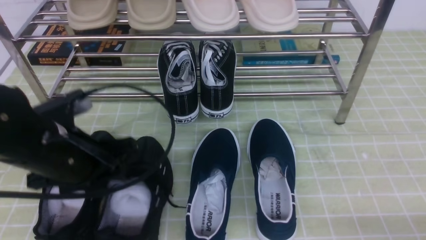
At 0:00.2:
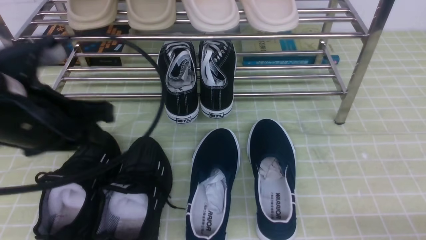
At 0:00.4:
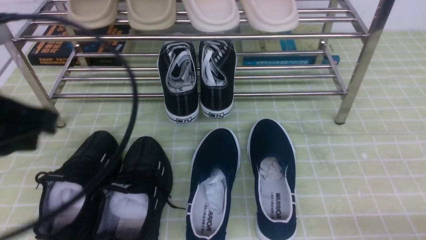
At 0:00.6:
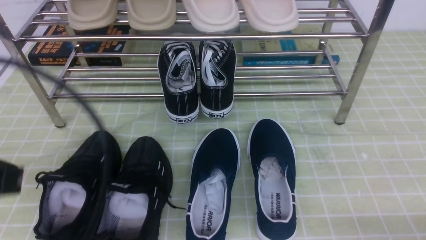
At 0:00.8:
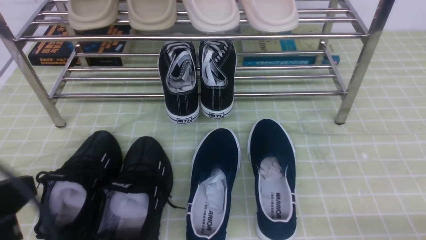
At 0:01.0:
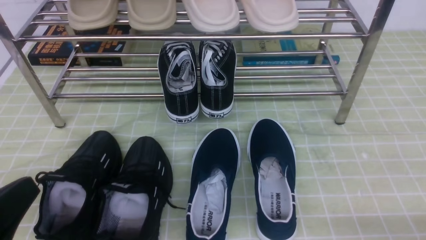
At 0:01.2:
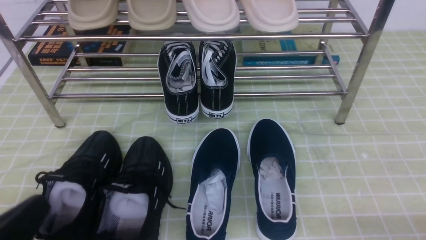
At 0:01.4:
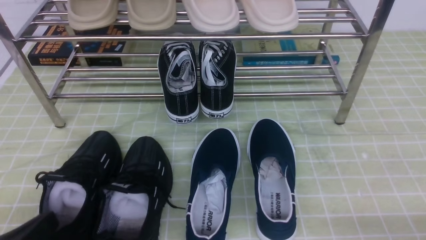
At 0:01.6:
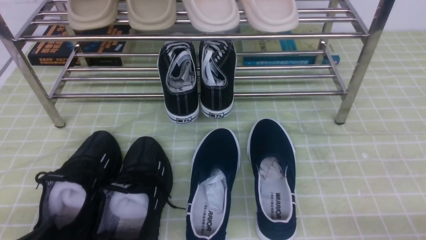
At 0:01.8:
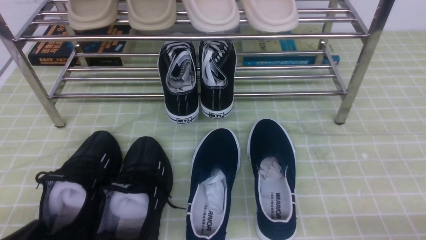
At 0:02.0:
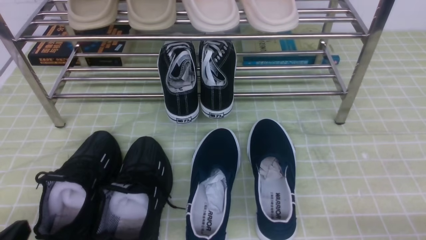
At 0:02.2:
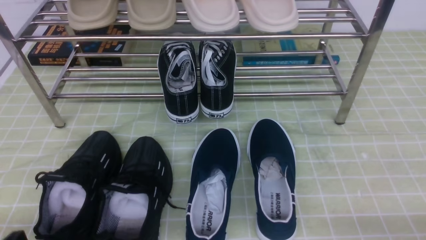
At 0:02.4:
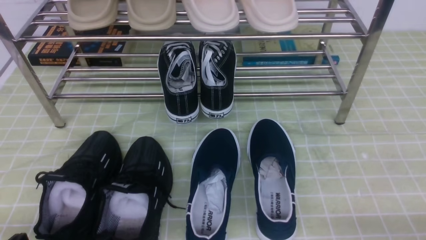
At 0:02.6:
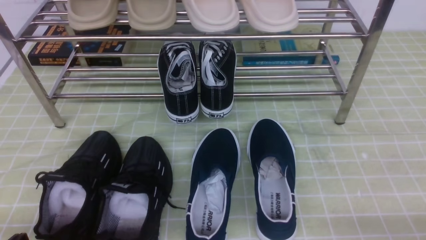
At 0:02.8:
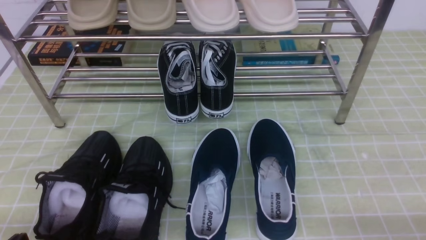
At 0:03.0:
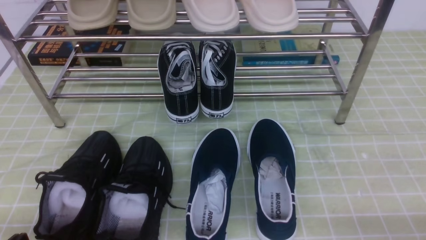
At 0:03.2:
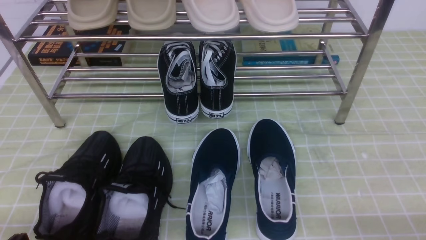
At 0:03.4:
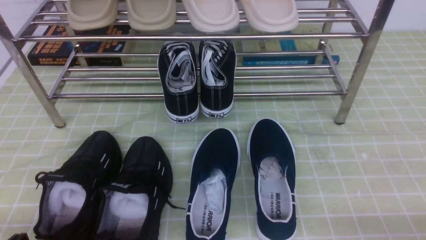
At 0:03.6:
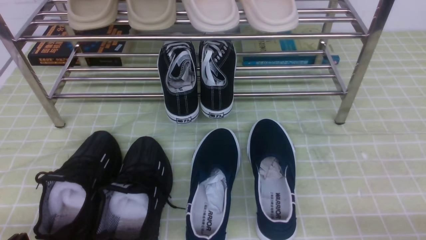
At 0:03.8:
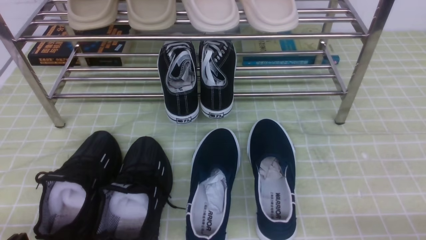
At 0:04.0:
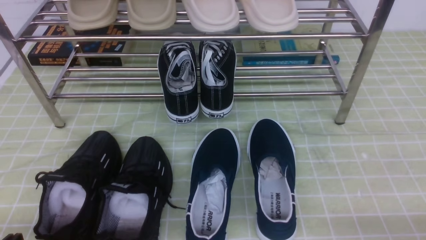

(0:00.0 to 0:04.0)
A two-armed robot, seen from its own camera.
0:00.0 - 0:01.4: The left gripper goes roughly 20 cm backward and downward, and closes.
0:01.4 - 0:02.6: The grippers move only a little.
0:02.6 - 0:04.0: Neither gripper changes place.
